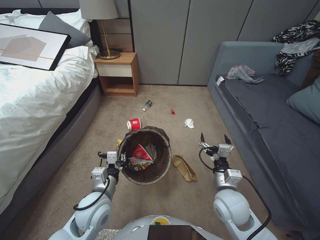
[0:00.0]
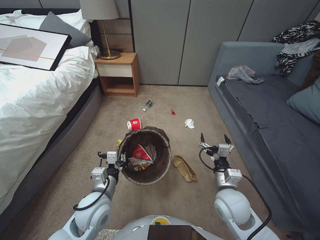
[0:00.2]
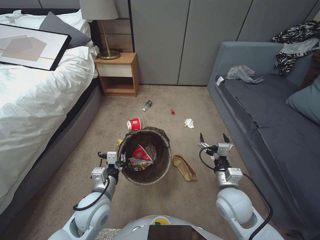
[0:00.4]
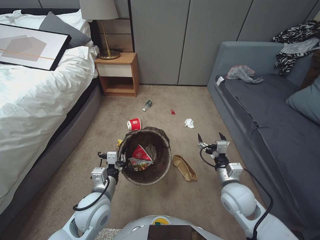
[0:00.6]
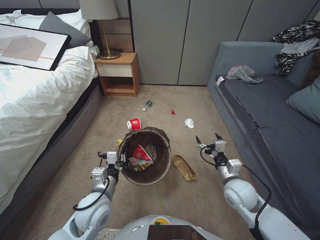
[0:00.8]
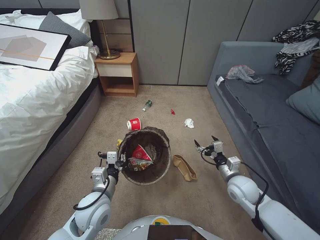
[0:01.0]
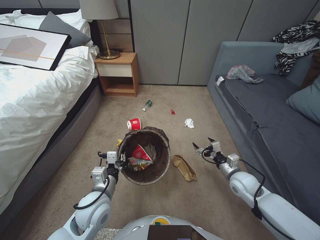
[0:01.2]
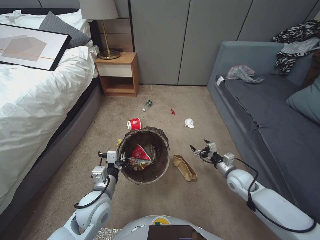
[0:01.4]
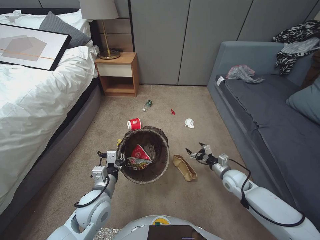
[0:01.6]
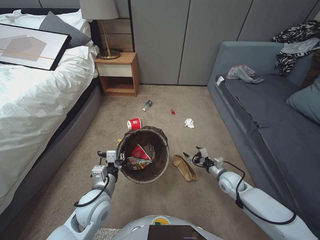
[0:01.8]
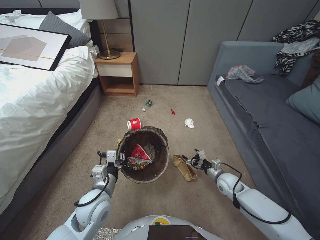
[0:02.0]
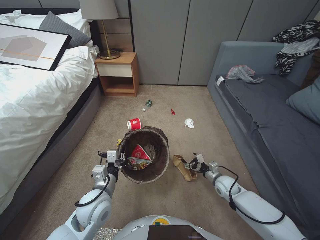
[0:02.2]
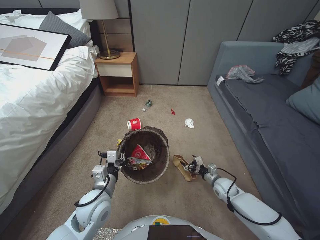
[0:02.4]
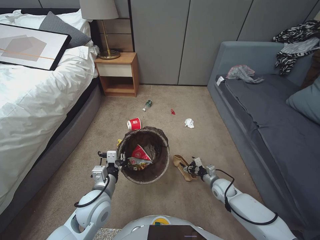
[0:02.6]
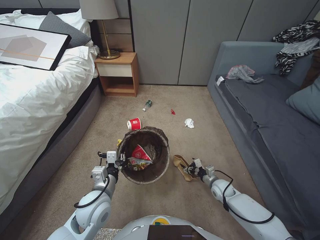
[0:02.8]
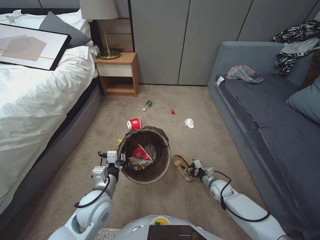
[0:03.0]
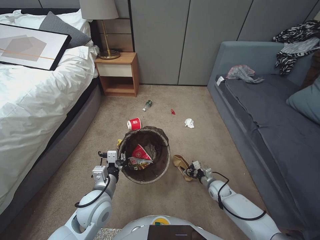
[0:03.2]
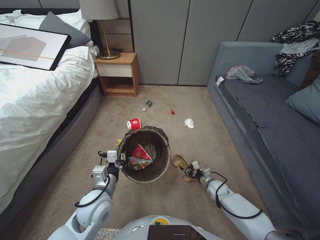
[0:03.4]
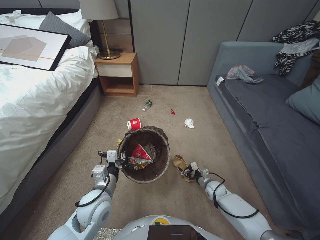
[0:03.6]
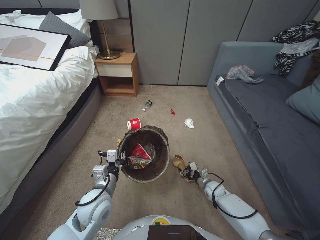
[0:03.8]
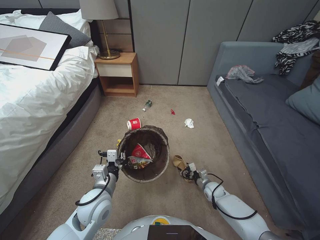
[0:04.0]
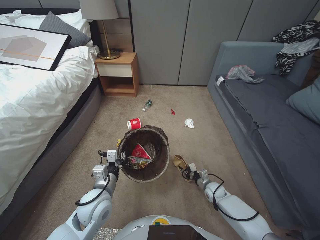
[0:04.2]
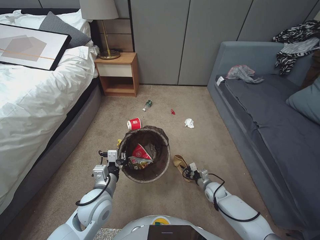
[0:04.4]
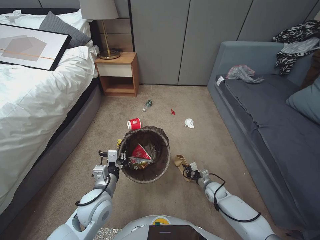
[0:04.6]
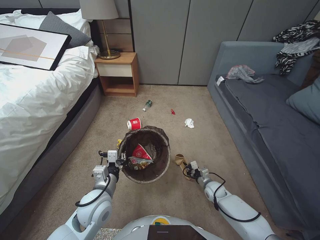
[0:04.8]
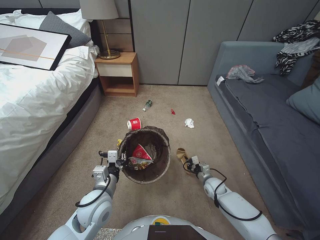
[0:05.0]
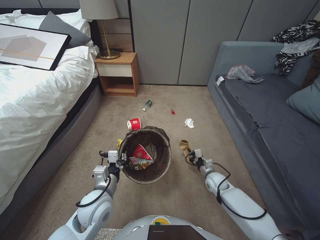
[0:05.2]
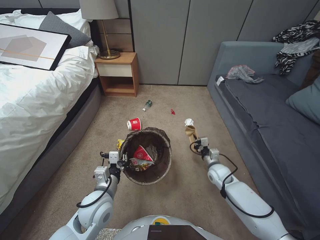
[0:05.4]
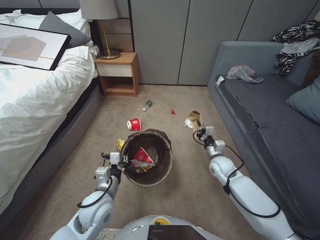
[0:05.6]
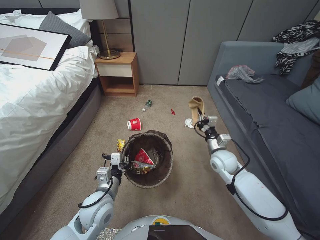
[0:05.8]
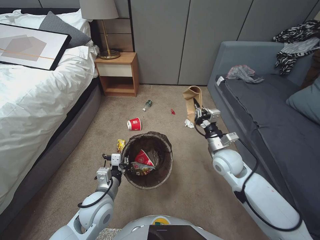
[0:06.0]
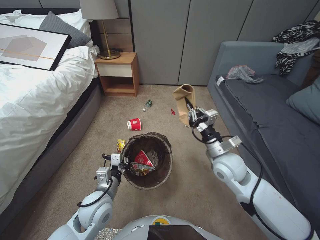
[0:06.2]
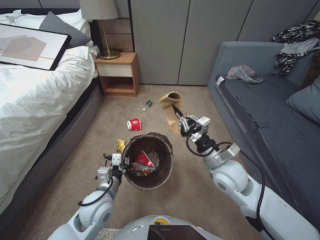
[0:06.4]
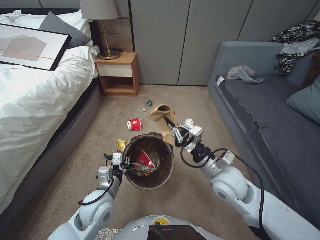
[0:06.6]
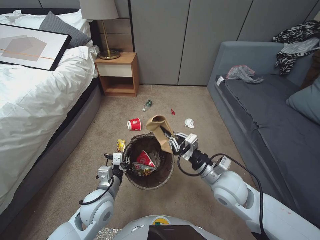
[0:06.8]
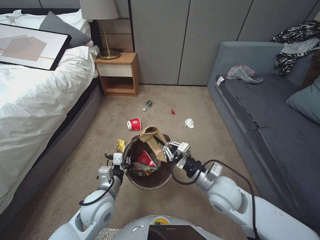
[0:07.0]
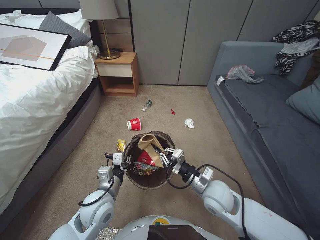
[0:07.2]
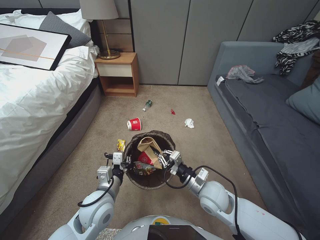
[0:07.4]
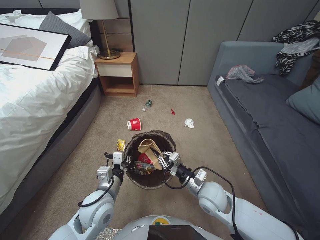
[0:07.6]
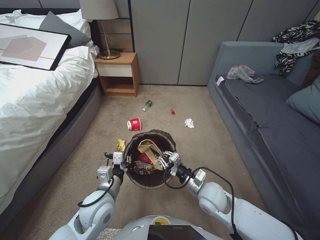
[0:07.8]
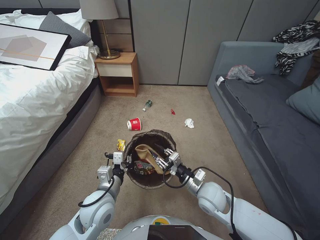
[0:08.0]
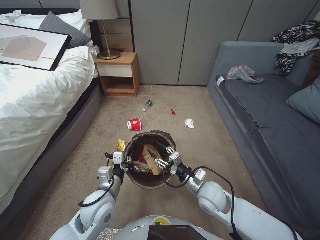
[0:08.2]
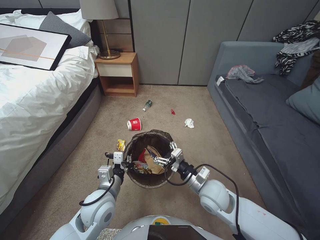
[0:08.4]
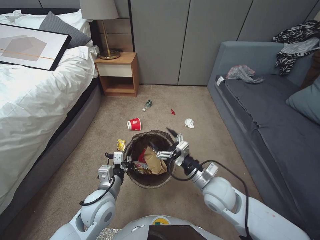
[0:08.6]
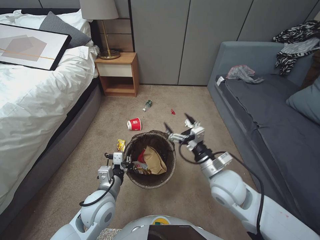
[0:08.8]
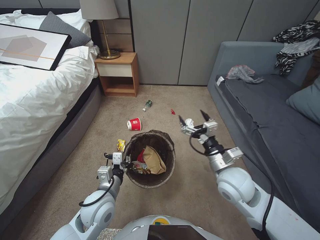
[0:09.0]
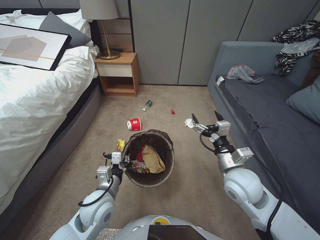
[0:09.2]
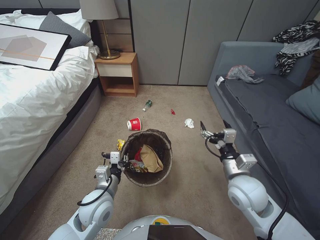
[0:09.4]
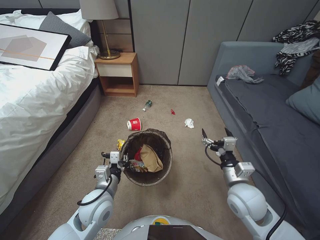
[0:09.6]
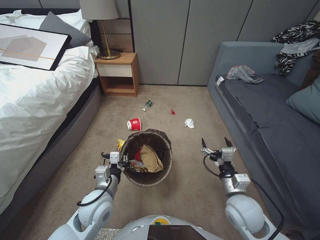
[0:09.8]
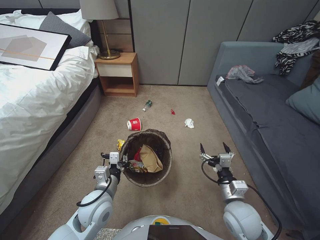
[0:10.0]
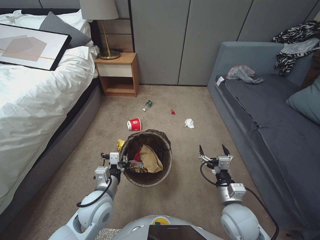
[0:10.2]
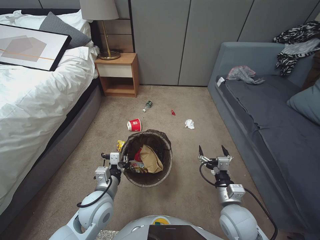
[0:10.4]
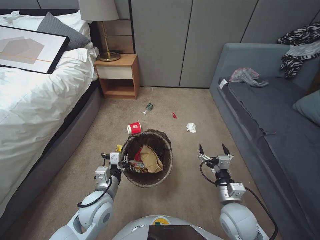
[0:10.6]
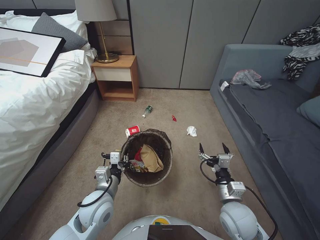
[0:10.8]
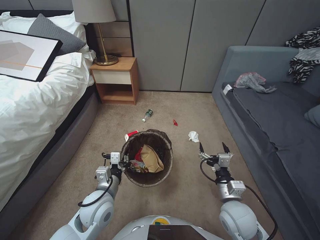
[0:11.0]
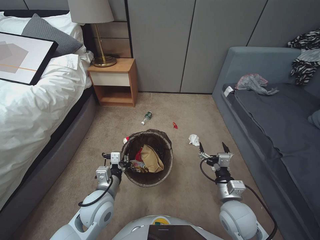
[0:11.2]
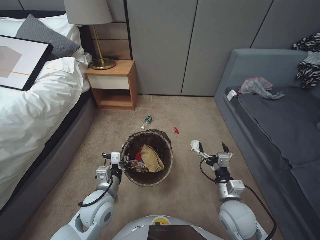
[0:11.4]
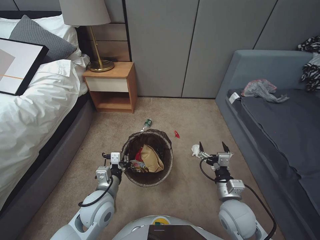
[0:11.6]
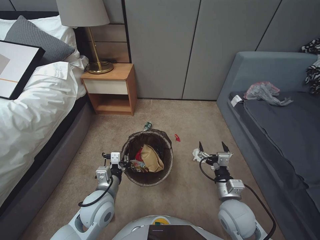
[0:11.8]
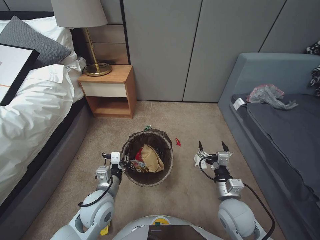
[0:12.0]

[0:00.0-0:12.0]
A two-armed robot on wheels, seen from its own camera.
Task of the whole recording: Pick up the trash bin, then pick up the garbage from the floor and place it into the trash bin.
0:00.0 to 0:01.6: The right gripper heads to the right, forward and downward, covering approximately 20 cm.
0:01.6 to 0:03.0: The right gripper travels downward by some 10 cm.
0:03.0 to 0:04.4: The right gripper closes up.
0:04.4 to 0:06.0: The right gripper moves upward, roughly 30 cm, and closes.
0:06.0 to 0:07.6: The right gripper travels backward, to the left and downward by roughly 15 cm.
0:07.6 to 0:09.0: The right gripper travels upward by roughly 10 cm, and opens its fingers.
0:09.0 to 0:10.4: The right gripper moves downward and backward, approximately 15 cm.

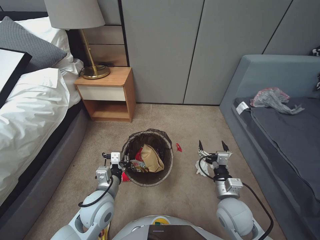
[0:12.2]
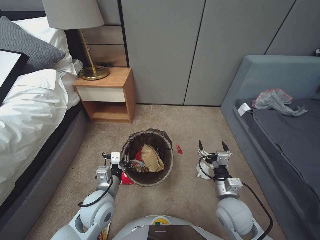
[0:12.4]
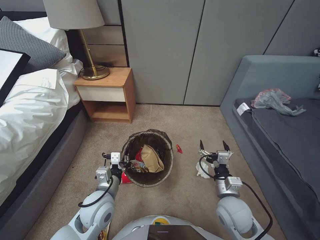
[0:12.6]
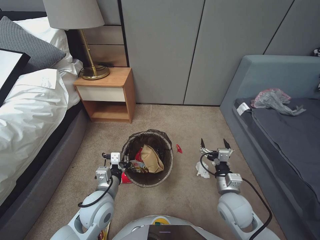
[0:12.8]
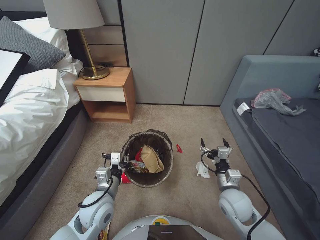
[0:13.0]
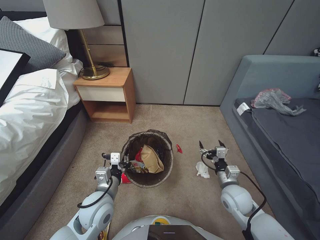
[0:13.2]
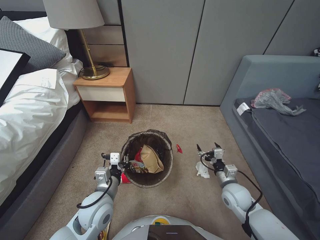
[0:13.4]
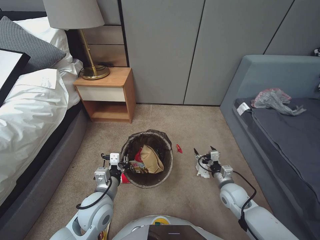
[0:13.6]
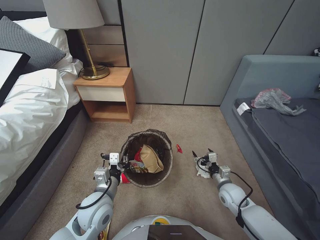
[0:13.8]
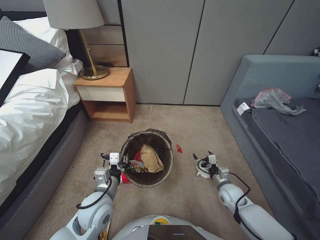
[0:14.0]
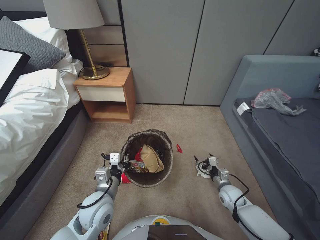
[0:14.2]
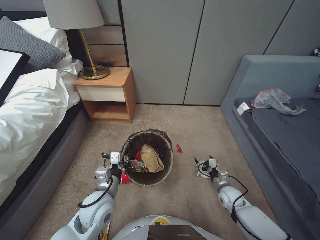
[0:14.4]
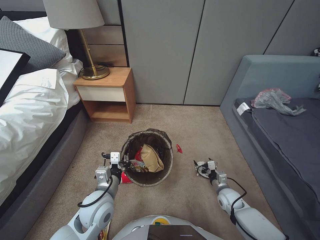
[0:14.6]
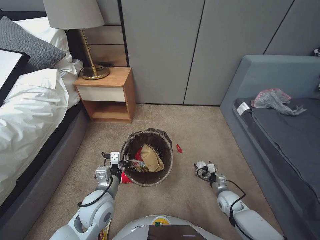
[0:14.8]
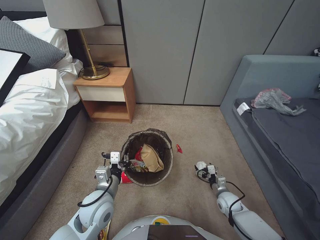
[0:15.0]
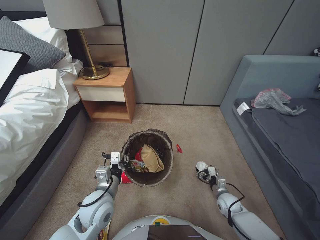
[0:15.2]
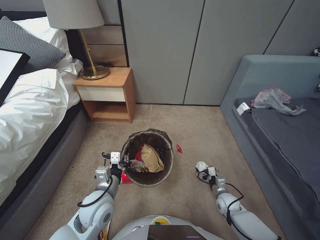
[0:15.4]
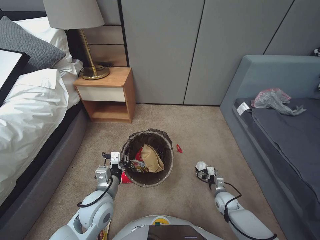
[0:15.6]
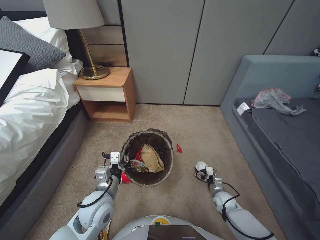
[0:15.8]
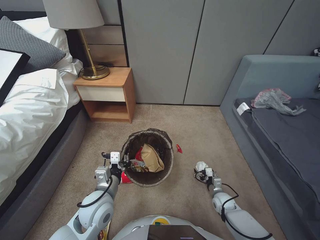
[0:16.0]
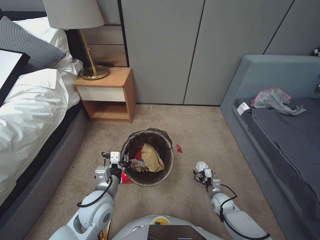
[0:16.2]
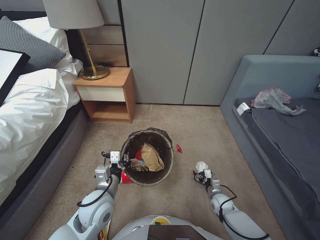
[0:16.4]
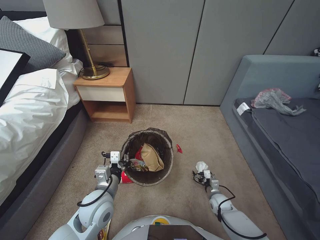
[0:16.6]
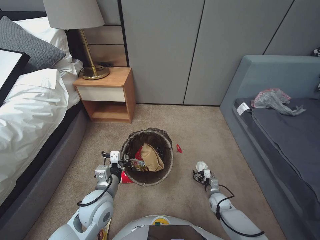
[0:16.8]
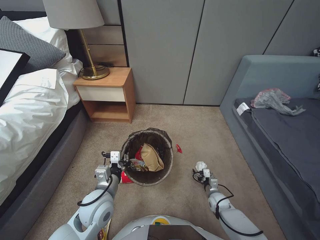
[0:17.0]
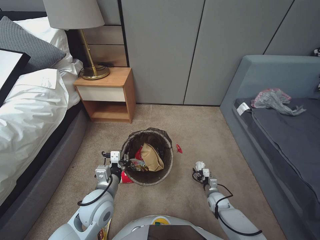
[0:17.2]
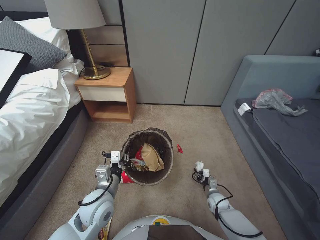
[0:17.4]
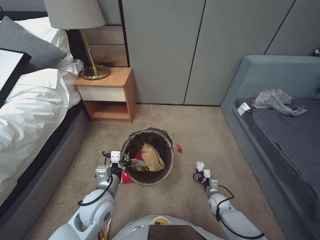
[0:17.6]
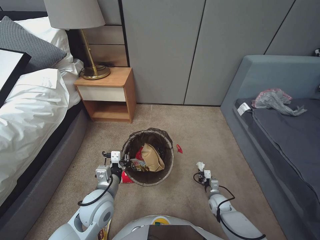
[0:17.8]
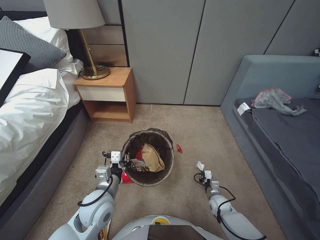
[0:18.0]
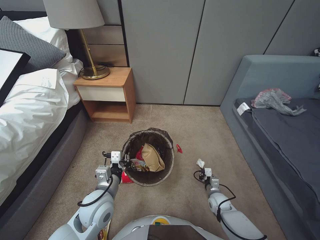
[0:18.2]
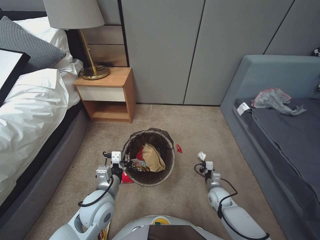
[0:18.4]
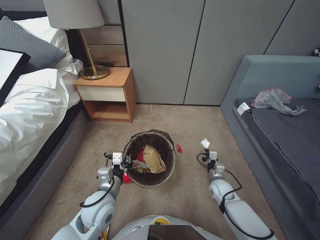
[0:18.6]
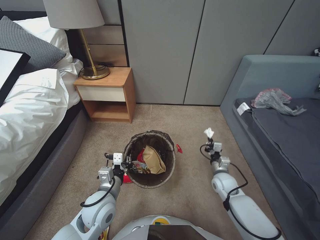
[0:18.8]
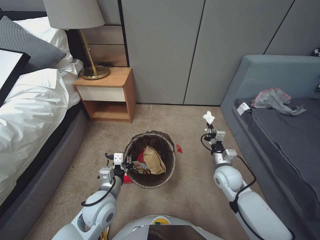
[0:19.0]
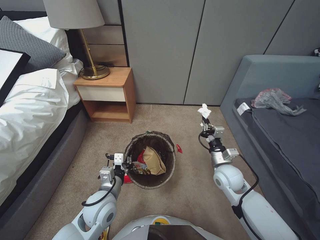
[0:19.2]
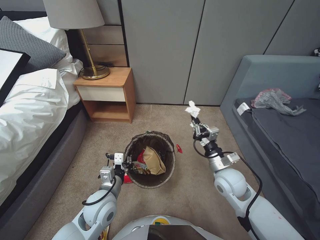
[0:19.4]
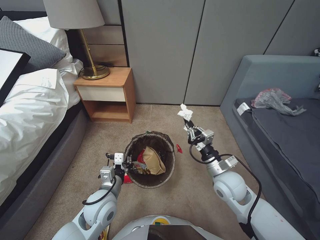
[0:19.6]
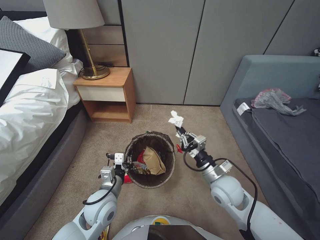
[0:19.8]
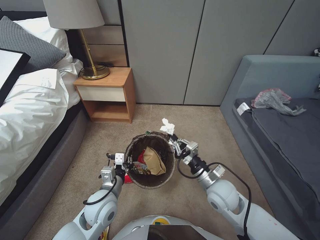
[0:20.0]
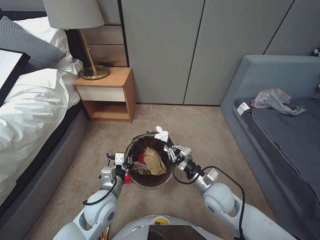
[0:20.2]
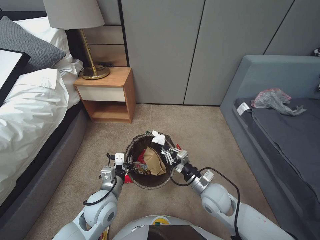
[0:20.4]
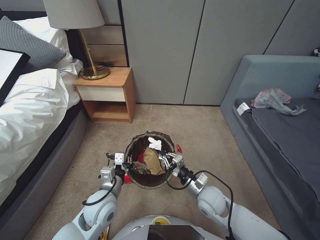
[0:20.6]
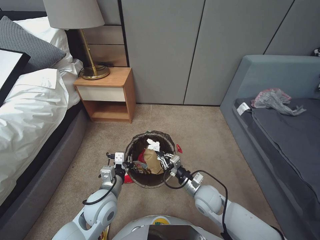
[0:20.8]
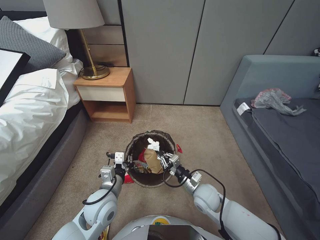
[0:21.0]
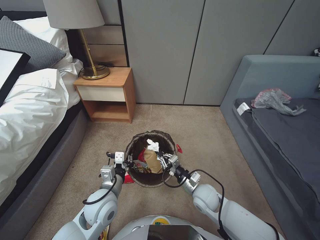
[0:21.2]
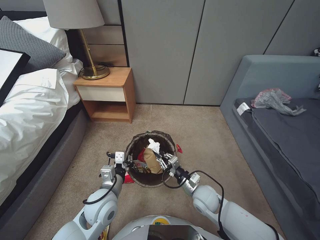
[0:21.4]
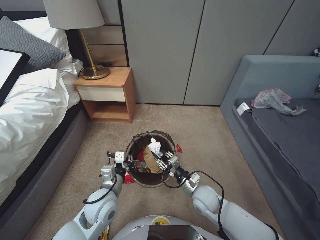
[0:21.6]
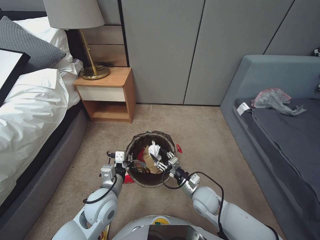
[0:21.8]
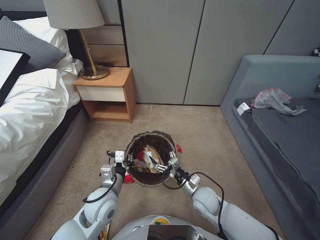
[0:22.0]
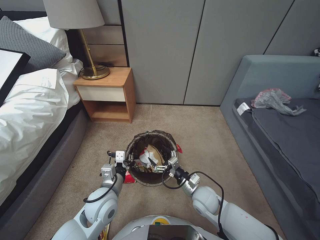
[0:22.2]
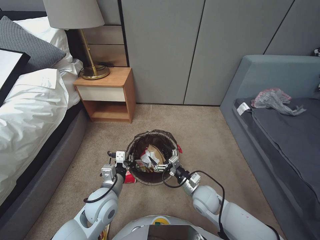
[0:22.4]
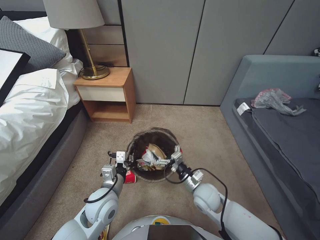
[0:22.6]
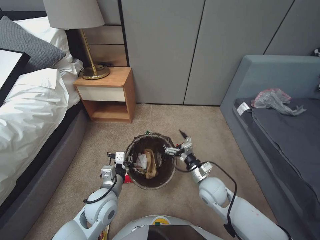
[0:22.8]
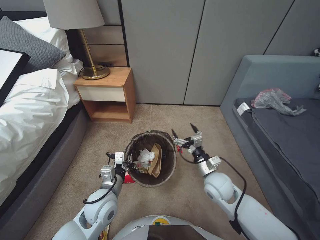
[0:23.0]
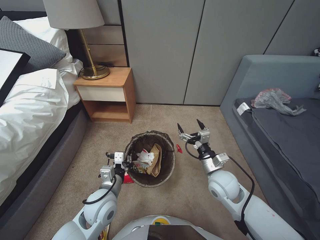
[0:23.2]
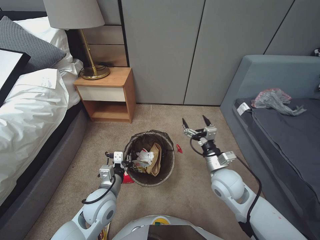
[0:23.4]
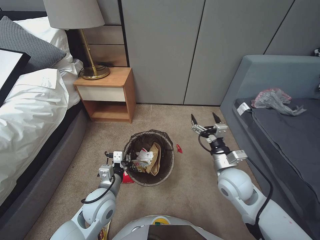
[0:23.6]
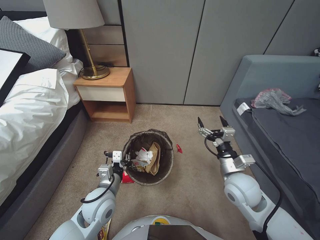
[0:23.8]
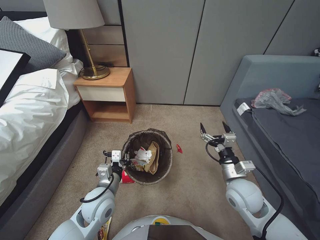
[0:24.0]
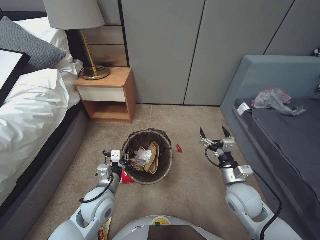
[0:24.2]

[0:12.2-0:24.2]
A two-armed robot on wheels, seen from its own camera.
Task of the whole recording: Pick up the trash bin, then pick up the garbage from the floor and place it into the trash bin.
0:12.2 to 0:13.8: The right gripper moves downward, forward and to the right, roughly 15 cm.
0:13.8 to 0:15.2: The right gripper is displaced downward by approximately 10 cm.
0:15.2 to 0:16.6: The right gripper moves downward, roughly 5 cm.
0:16.6 to 0:18.2: The right gripper closes.
0:18.2 to 0:19.8: The right gripper moves upward, roughly 25 cm.
0:19.8 to 0:21.2: The right gripper is displaced downward by approximately 10 cm.
0:21.2 to 0:22.6: The right gripper opens.
0:22.6 to 0:24.2: The right gripper goes some 15 cm upward and to the right.
